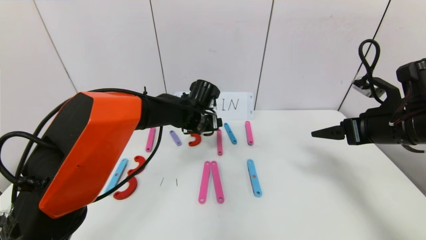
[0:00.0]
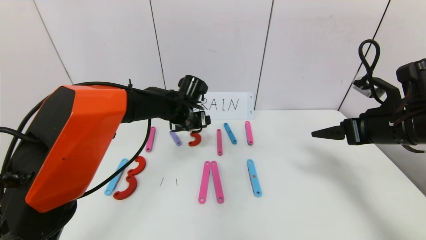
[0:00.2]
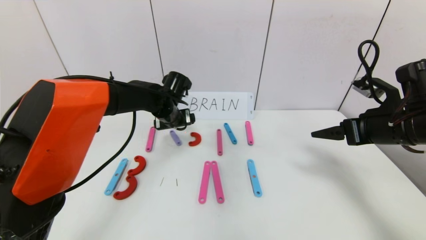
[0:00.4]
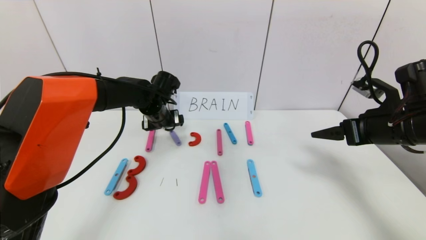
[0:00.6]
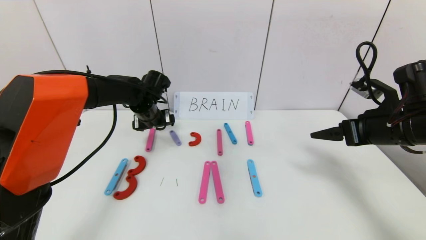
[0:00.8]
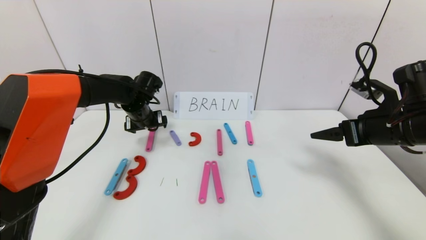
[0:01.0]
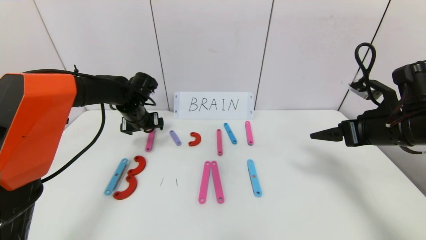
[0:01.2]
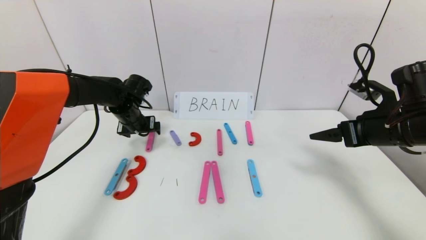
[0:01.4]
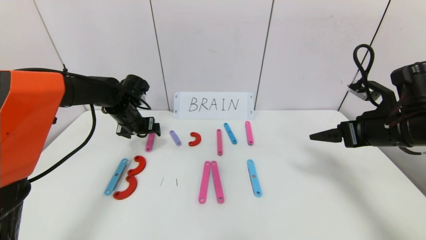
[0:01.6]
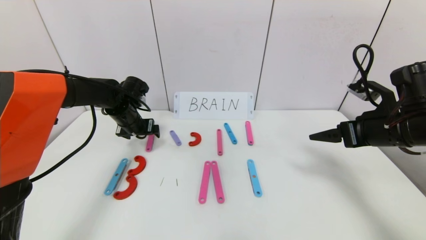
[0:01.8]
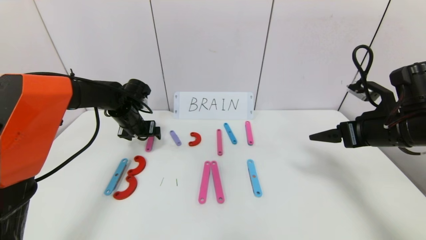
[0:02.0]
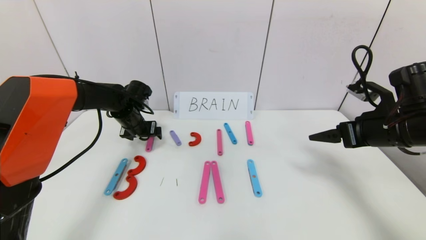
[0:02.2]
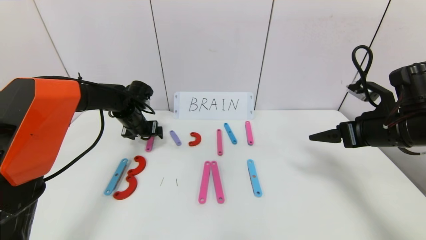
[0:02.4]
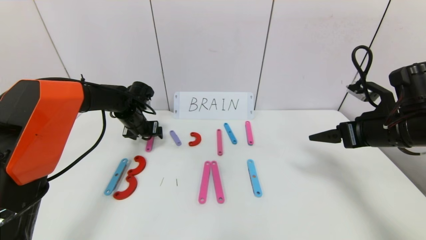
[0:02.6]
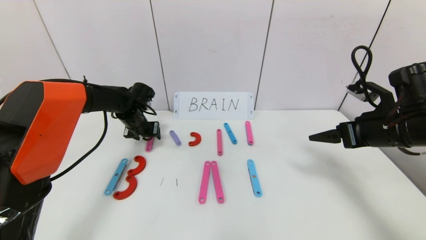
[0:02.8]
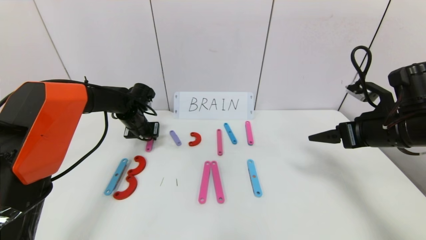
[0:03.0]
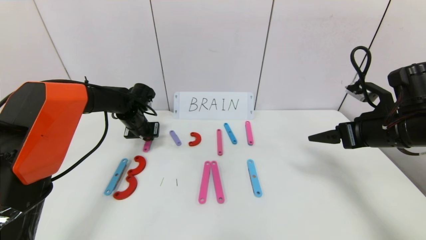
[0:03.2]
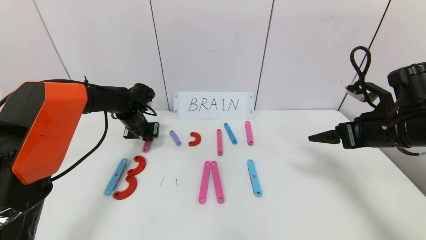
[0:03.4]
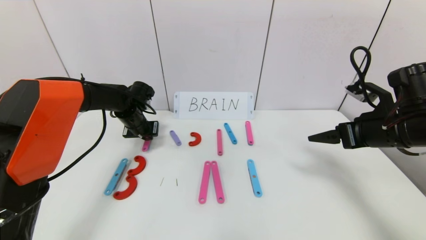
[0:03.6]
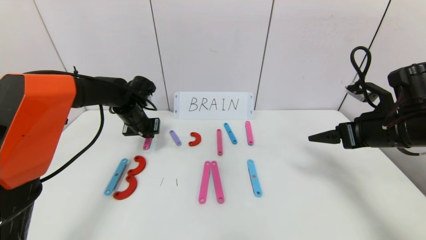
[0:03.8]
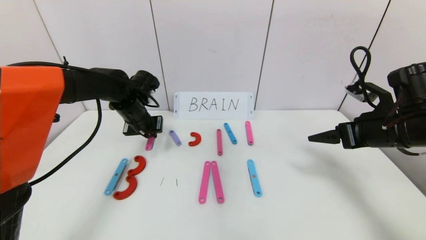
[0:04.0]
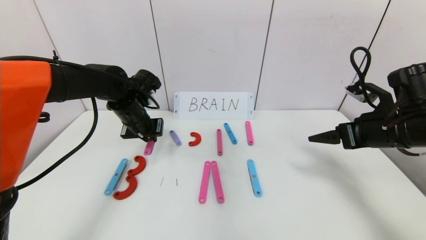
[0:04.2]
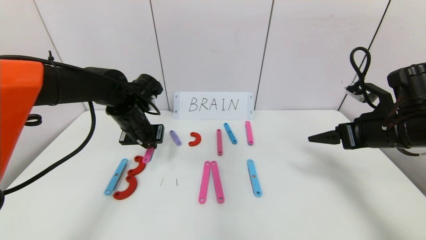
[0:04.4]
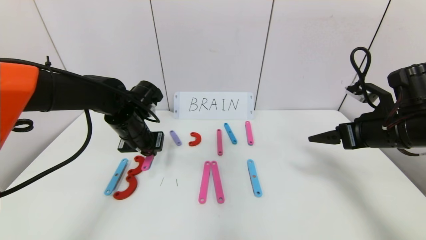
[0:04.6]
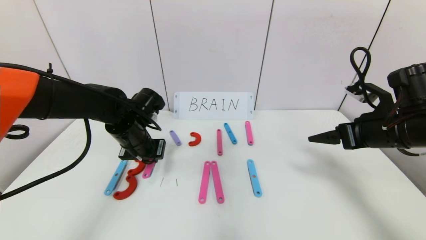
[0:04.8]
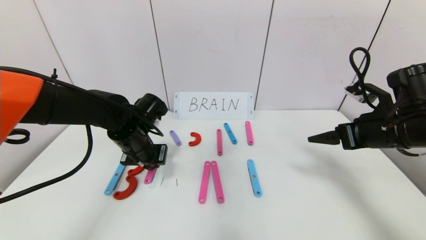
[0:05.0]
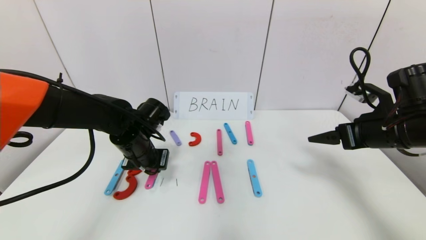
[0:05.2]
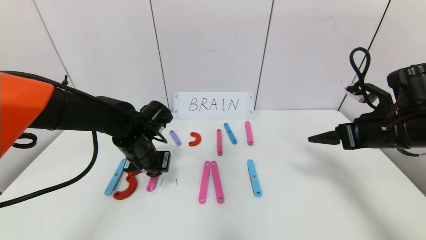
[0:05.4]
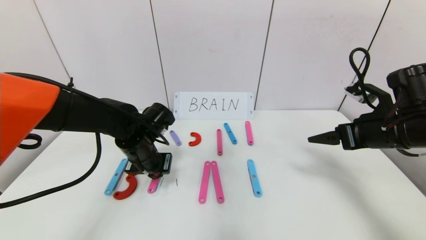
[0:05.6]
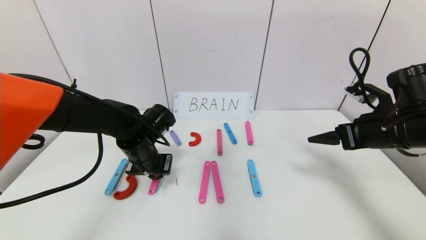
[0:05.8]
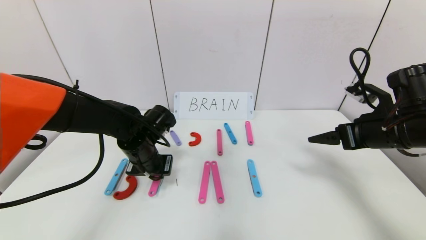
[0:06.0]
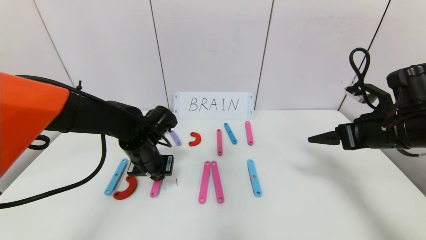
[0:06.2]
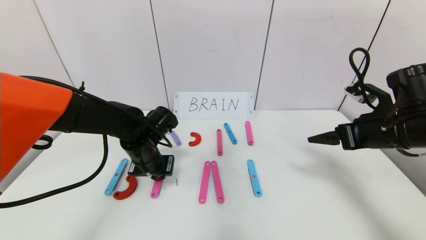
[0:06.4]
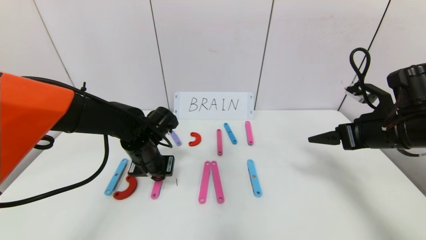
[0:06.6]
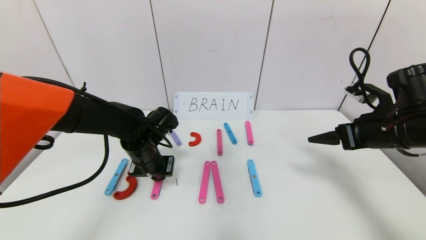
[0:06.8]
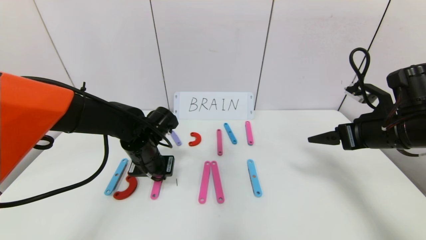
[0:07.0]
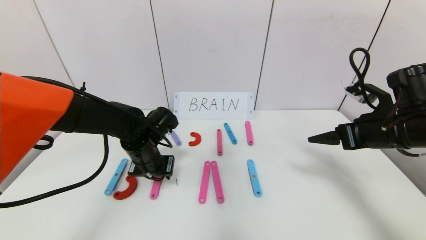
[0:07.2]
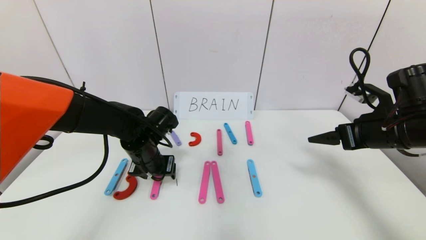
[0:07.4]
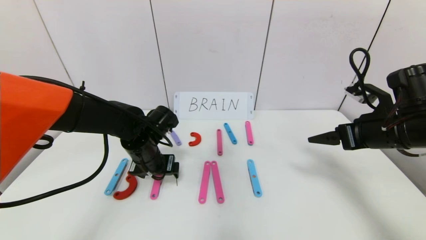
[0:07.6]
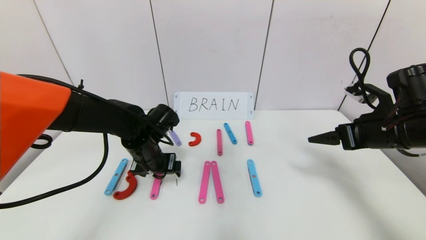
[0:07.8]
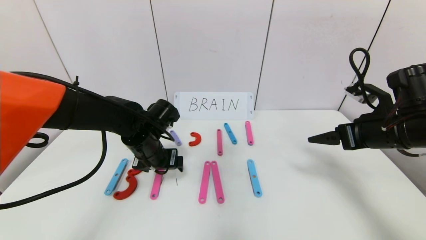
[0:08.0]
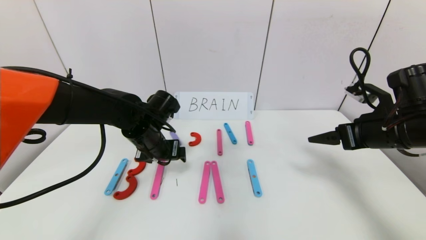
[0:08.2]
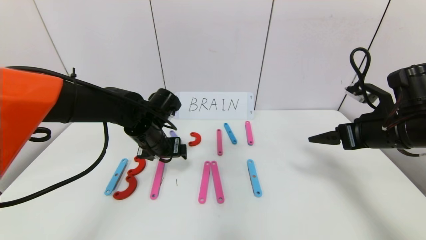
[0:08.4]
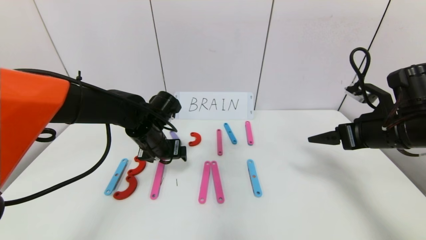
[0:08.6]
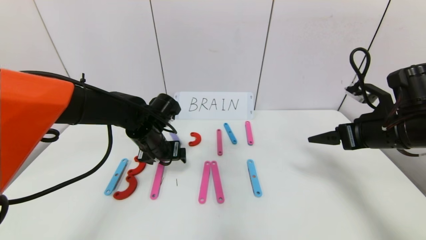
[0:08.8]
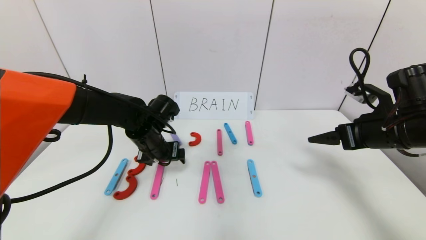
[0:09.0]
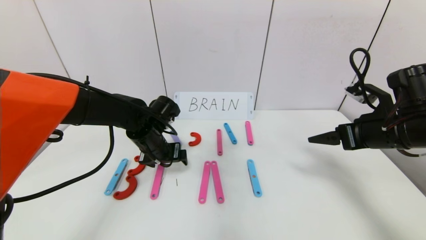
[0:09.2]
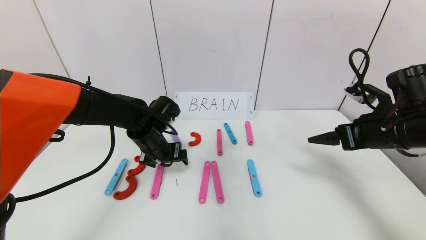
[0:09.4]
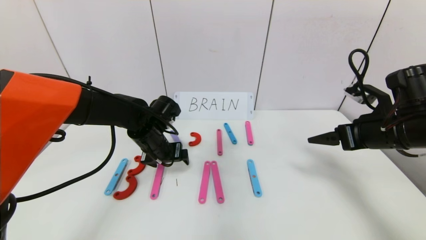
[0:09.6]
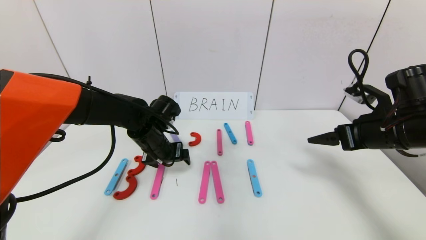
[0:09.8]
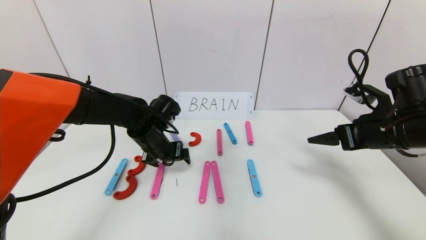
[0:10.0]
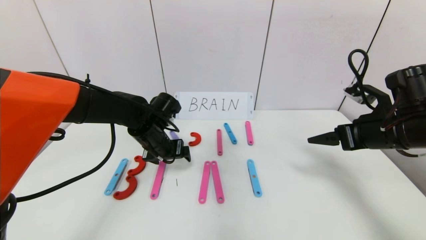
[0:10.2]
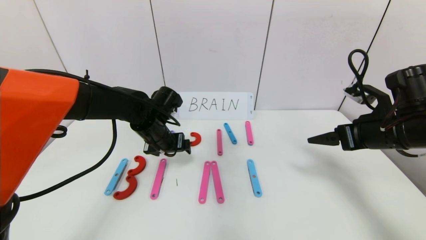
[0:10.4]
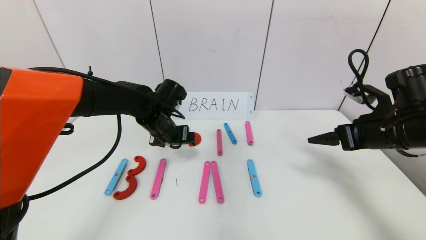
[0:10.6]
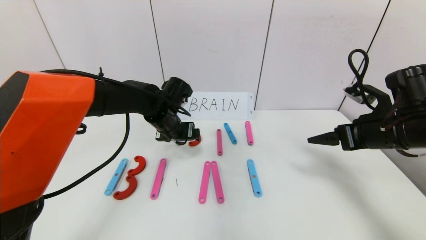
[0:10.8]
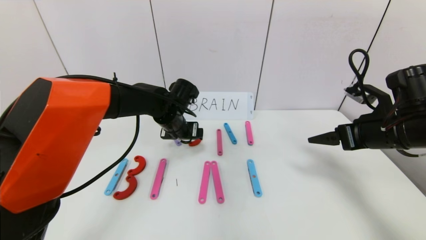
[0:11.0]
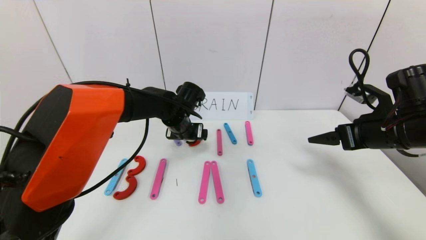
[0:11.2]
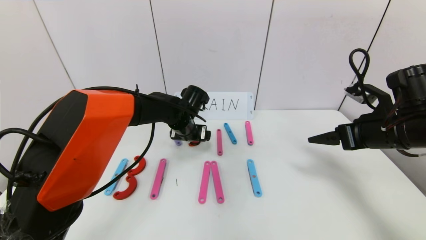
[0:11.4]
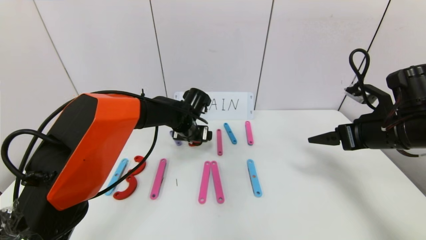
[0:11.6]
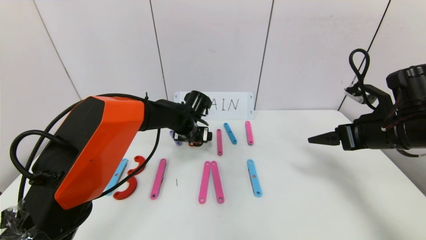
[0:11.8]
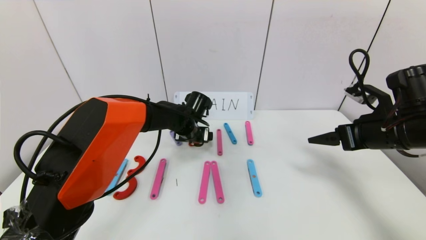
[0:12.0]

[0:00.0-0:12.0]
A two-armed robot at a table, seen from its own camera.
Task of the whole recording: rearrange the word baai as brain.
0.0 to 1.6 s: The left gripper shifts about 20 cm to the left.
1.6 to 3.0 s: The left gripper closes.
3.0 to 4.4 s: The left gripper is displaced backward and upward by about 10 cm.
4.4 to 6.0 s: The left gripper heads downward, covering approximately 5 cm.
6.0 to 7.6 s: The left gripper opens.
7.6 to 10.4 s: The grippers stay close to where they were, moving slightly.
10.4 to 12.0 s: The left gripper moves to the right and forward, roughly 10 cm.

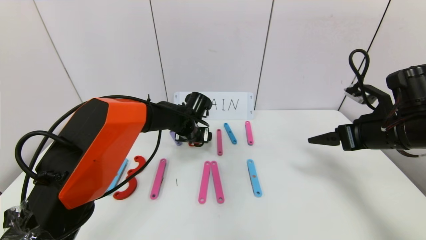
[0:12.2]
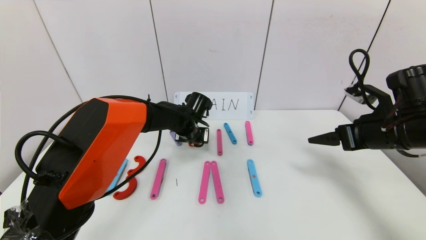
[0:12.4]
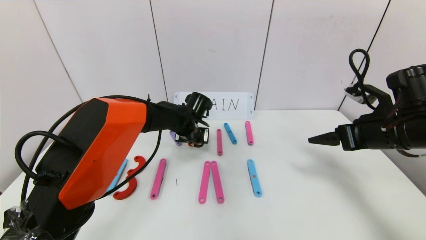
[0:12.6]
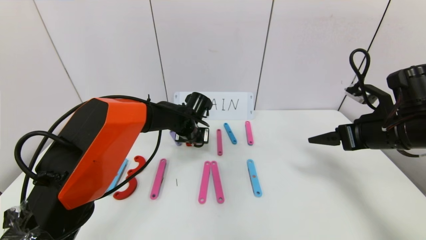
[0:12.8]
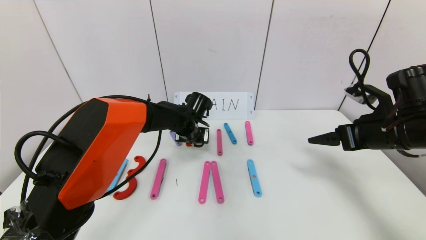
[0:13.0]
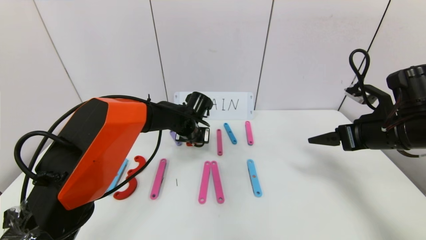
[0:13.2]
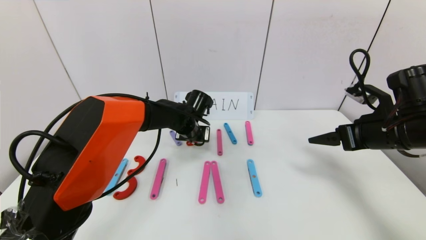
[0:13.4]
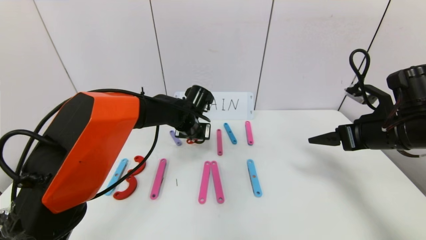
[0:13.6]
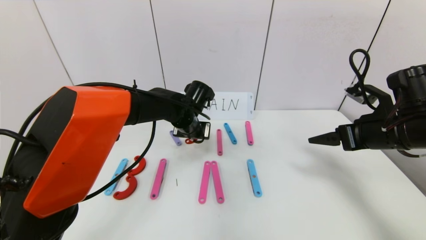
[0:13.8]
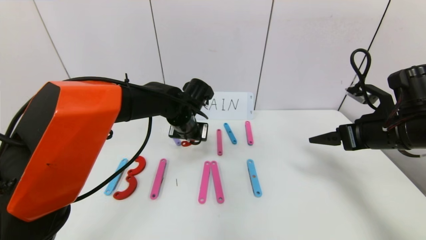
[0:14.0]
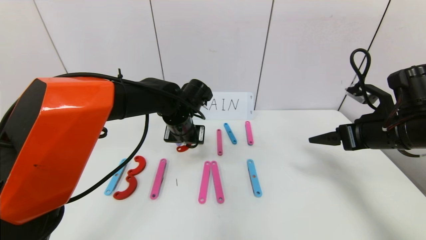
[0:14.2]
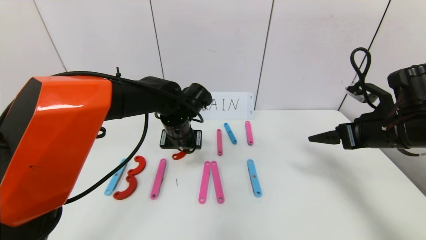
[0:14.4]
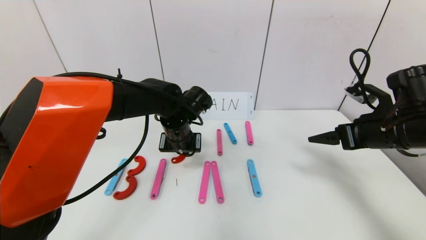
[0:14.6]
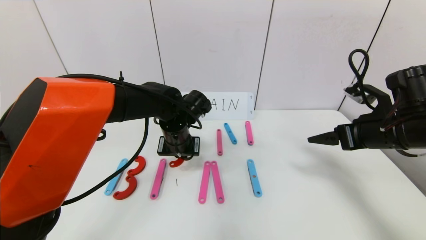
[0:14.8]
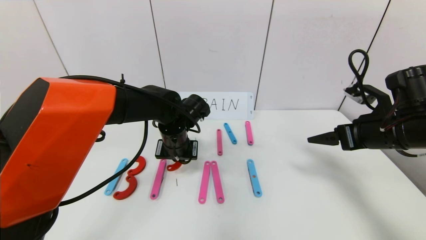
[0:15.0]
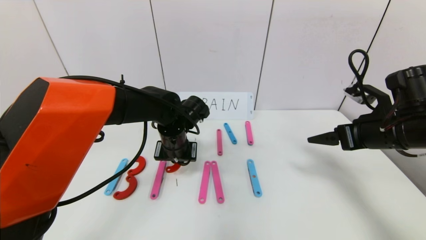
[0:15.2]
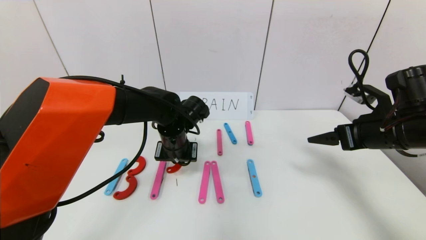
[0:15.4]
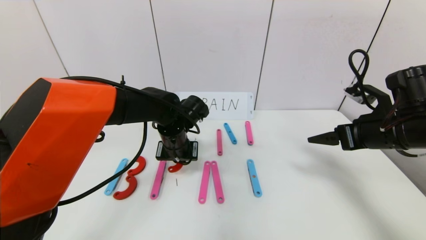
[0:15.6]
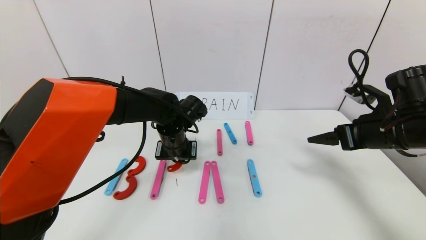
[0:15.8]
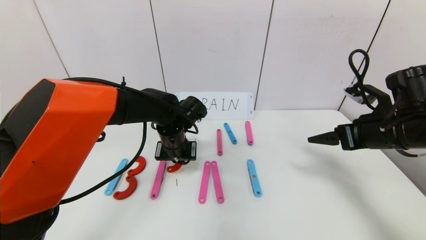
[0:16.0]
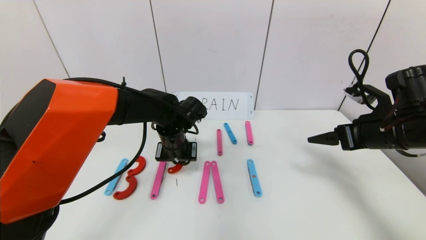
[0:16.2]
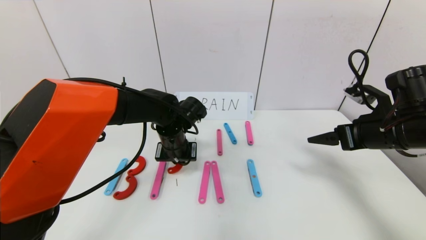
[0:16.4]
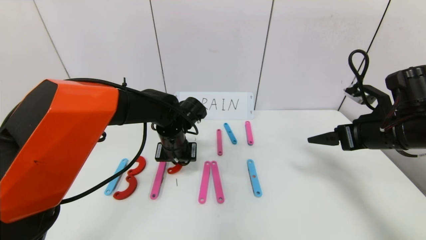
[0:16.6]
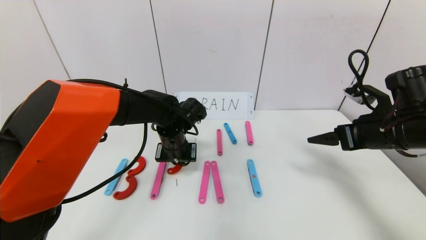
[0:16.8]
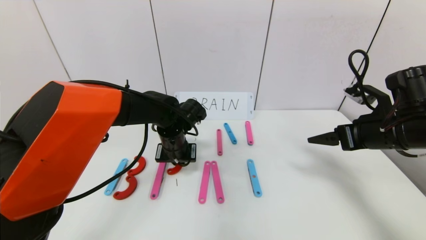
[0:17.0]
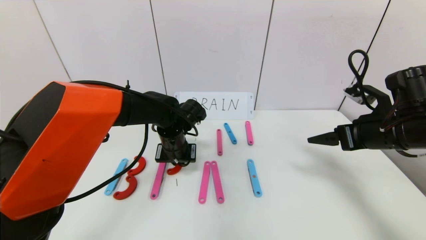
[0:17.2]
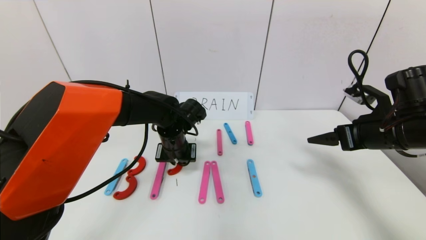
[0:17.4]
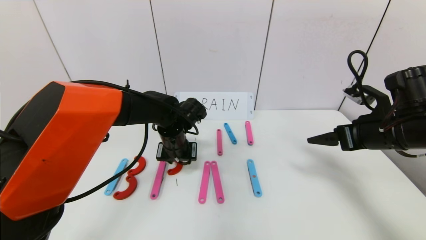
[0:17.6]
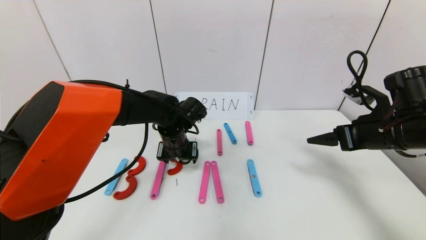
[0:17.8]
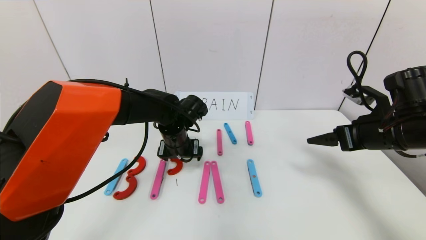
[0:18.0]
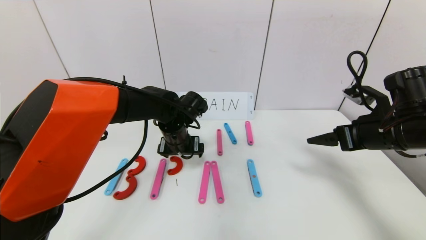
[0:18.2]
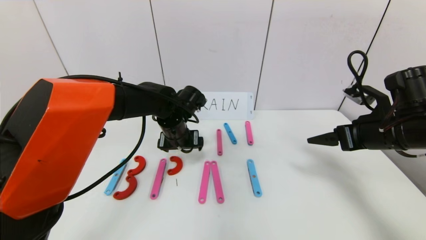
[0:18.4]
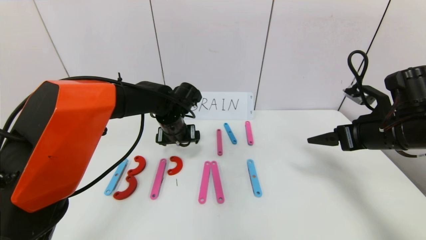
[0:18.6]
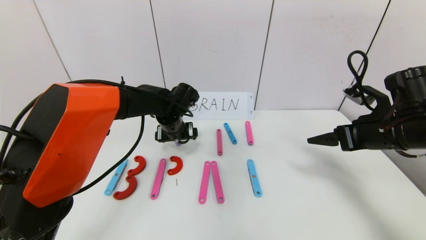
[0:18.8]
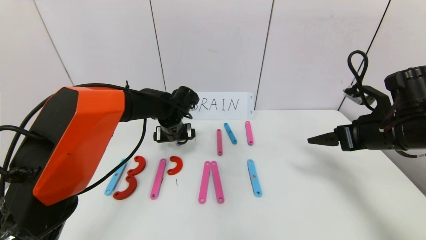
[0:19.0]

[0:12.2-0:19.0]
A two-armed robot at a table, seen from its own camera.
Task of the whole recording: rearrange the word baai as brain.
12.2 to 13.6 s: The left gripper closes.
13.6 to 15.0 s: The left gripper travels backward by approximately 5 cm.
15.0 to 16.2 s: The two grippers keep their place.
16.2 to 17.6 s: The left gripper opens.
17.6 to 19.0 s: The left gripper travels forward by approximately 5 cm, and opens its fingers.
